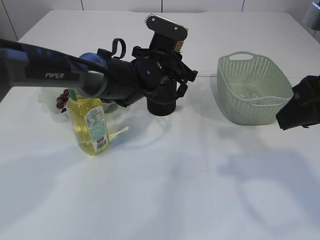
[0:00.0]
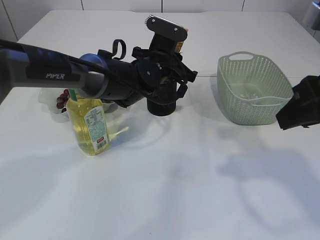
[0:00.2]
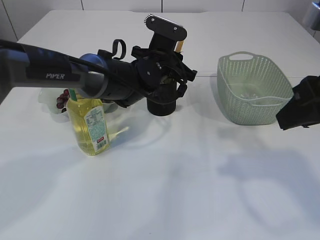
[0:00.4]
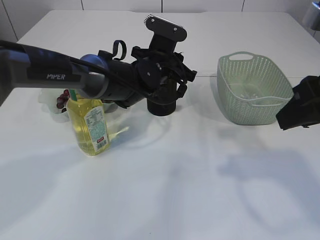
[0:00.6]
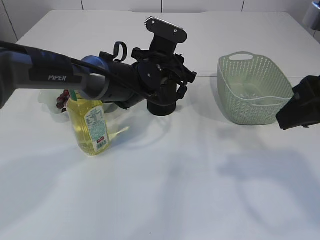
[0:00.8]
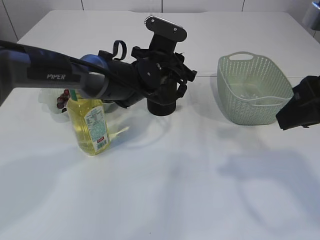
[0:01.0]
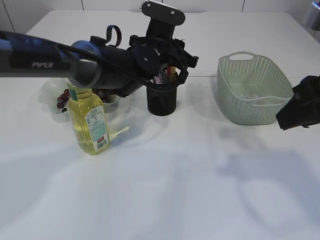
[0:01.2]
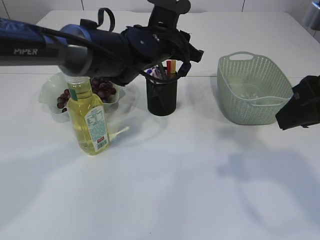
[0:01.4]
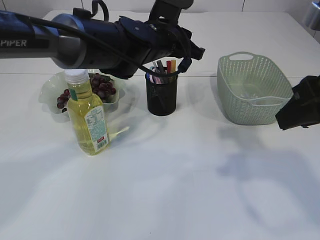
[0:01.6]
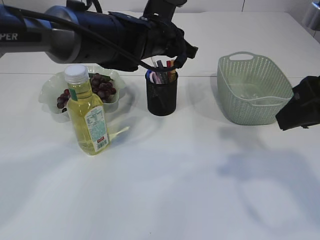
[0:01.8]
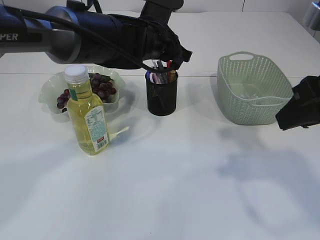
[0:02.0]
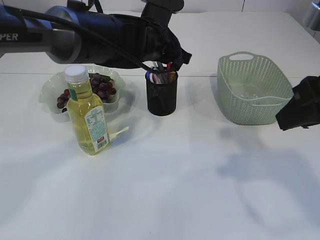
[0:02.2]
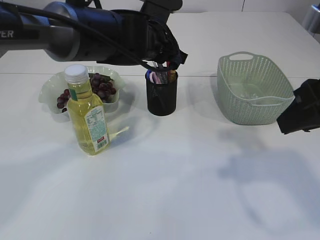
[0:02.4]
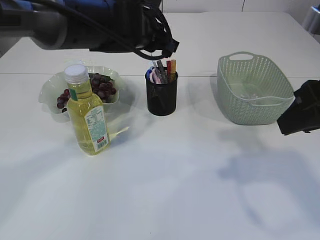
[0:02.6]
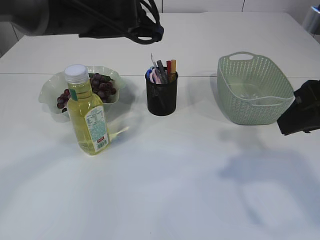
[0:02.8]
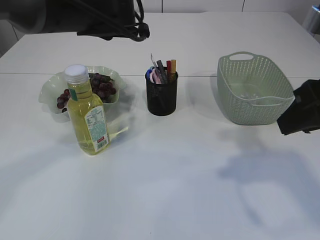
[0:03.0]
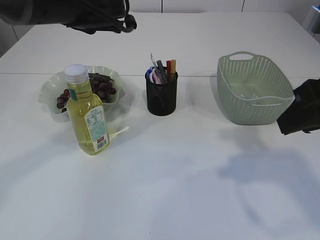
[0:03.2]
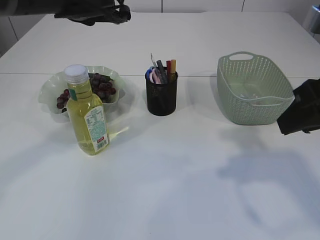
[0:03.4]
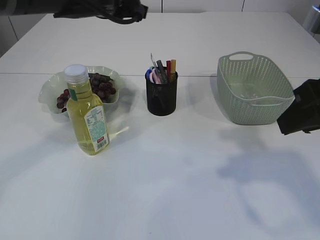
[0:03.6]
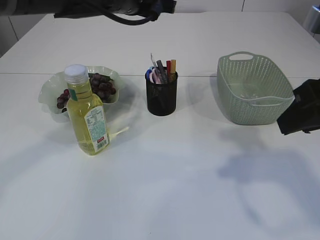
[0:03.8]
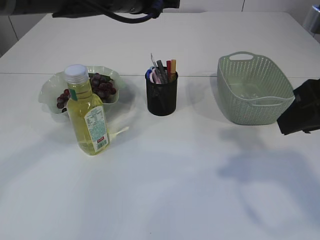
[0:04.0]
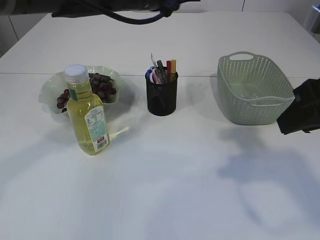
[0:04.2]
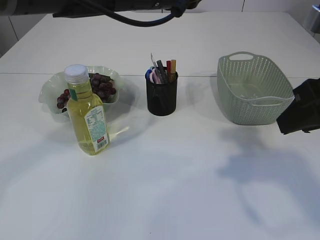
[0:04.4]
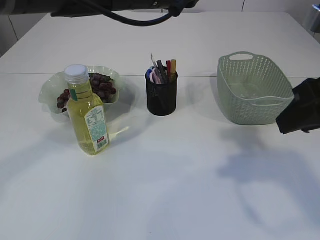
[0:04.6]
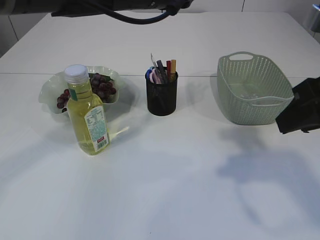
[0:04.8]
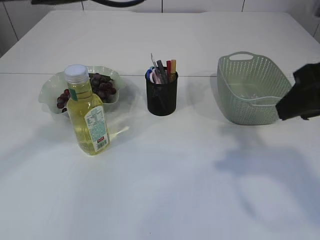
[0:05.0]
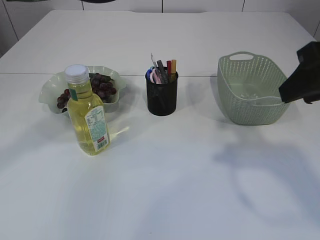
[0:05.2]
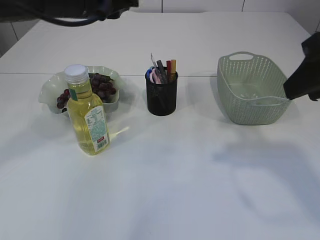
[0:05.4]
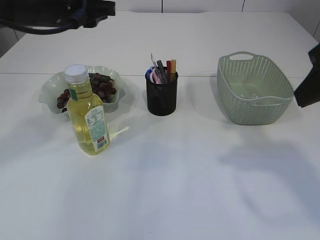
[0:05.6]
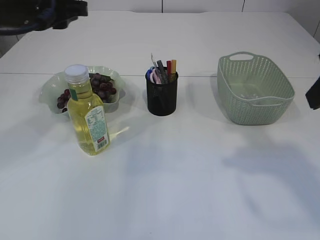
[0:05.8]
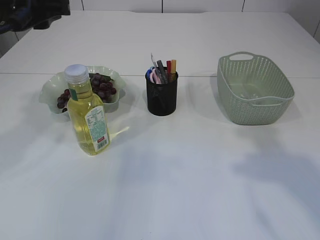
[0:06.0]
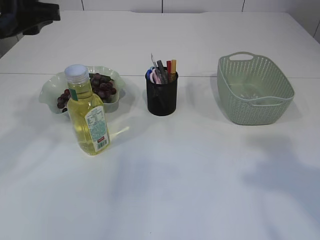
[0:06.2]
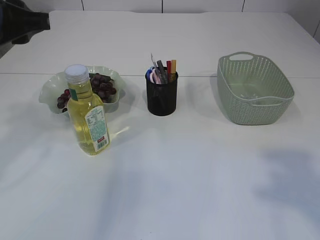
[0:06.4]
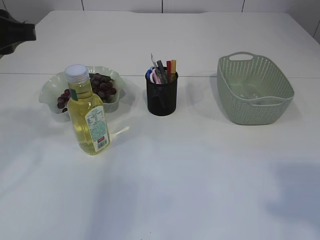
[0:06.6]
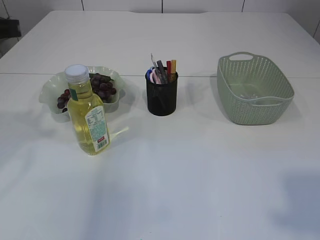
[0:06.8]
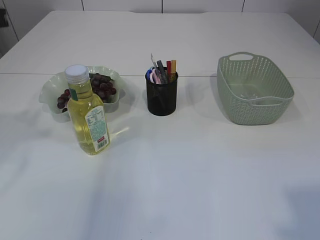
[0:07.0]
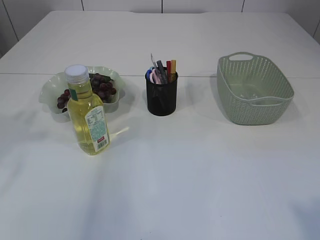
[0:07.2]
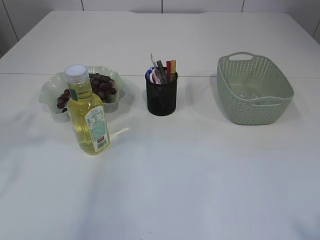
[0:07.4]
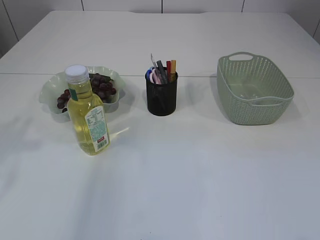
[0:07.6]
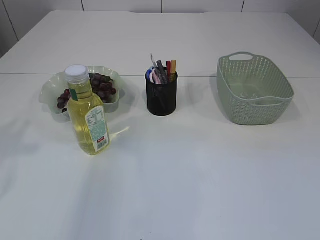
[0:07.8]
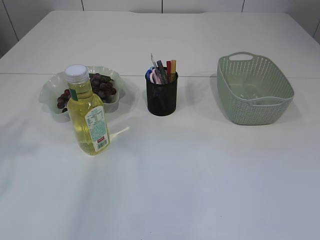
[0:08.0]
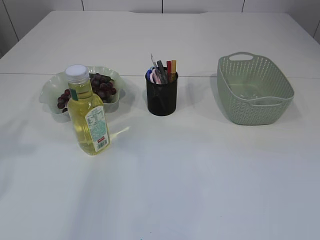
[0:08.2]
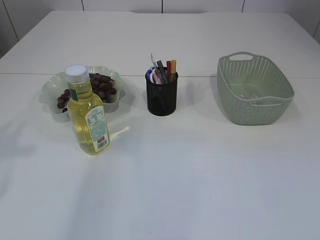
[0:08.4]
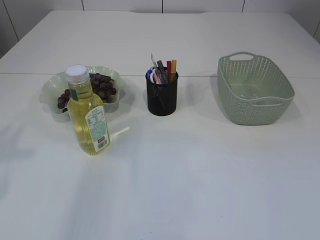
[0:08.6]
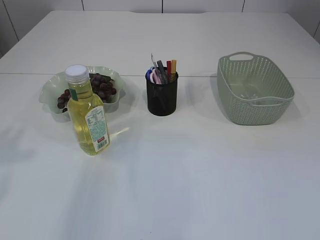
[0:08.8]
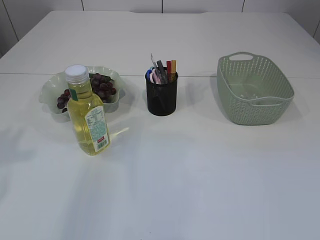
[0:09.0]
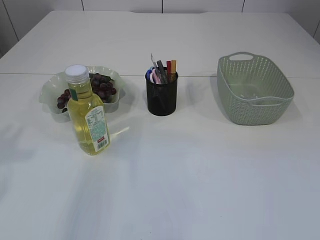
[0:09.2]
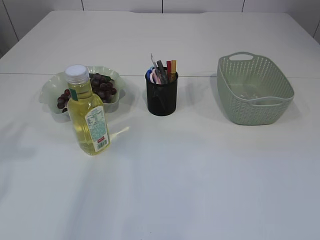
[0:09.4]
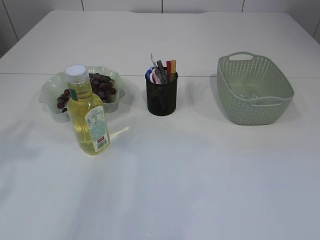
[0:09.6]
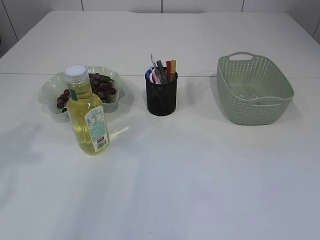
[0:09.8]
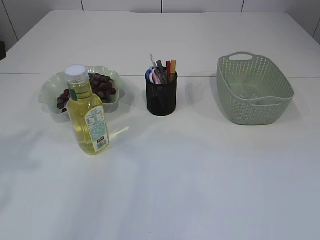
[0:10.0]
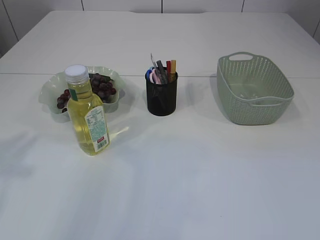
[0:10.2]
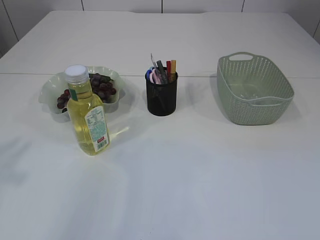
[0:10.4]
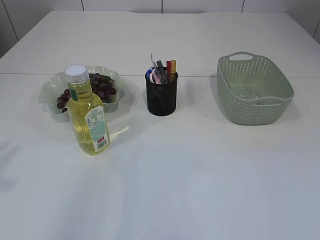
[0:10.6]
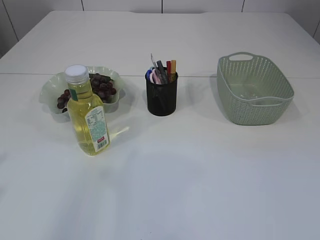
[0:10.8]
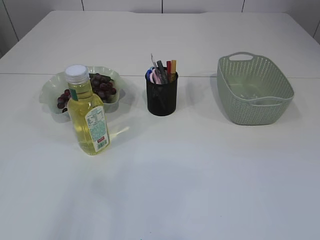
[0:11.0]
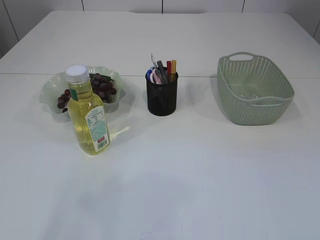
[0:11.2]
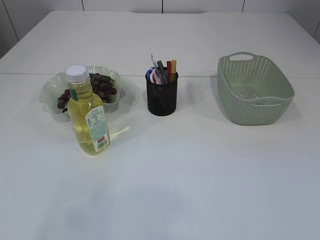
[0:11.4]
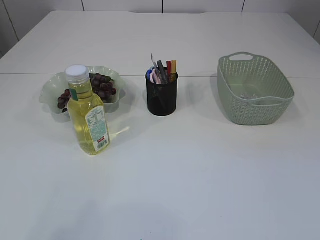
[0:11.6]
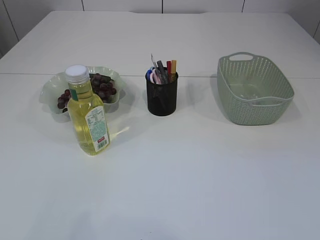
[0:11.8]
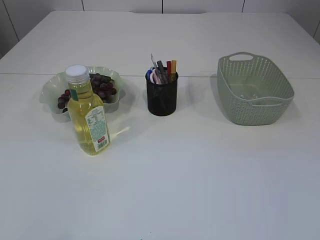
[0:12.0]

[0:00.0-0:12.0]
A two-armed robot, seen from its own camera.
Step, 0:00.0 to 0:02.8: place the yellow glue into the pen holder.
0:00.0 to 0:01.6: The left gripper travels upward by about 5 cm.
0:01.6 to 0:03.0: The left gripper heads to the left and upward, covering about 10 cm.
0:03.0 to 0:04.4: The left gripper goes about 5 cm to the right.
0:04.4 to 0:06.0: The right gripper is displaced upward by approximately 5 cm; the left gripper travels to the left by about 20 cm.
0:06.0 to 0:07.6: The left gripper goes some 10 cm backward and to the left.

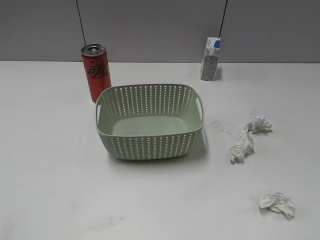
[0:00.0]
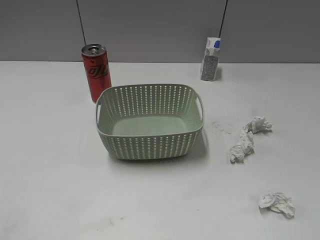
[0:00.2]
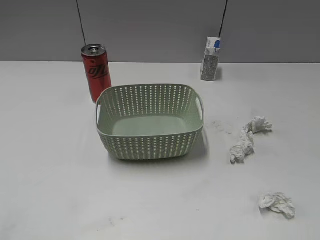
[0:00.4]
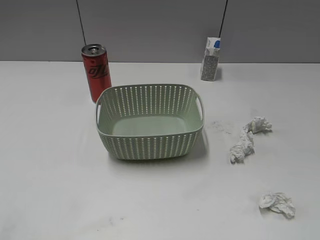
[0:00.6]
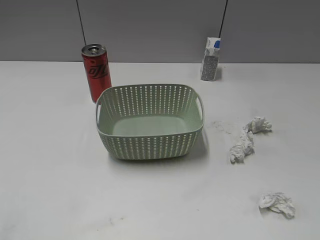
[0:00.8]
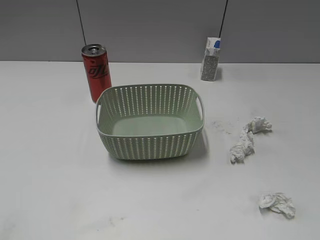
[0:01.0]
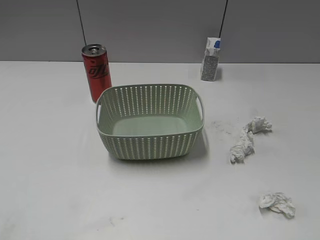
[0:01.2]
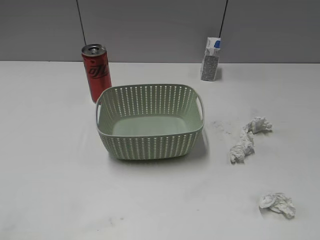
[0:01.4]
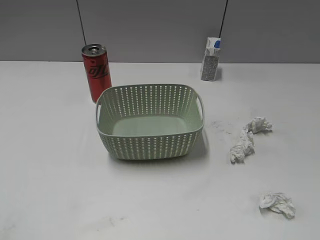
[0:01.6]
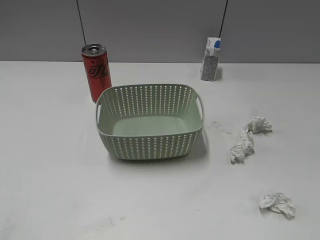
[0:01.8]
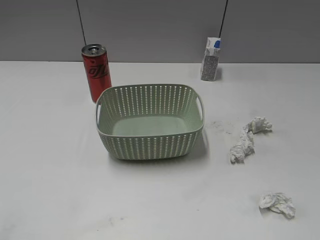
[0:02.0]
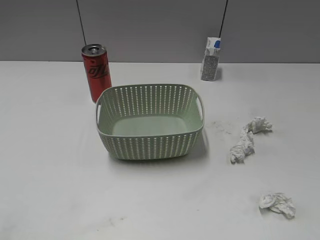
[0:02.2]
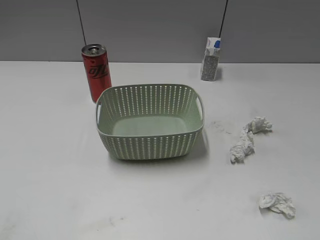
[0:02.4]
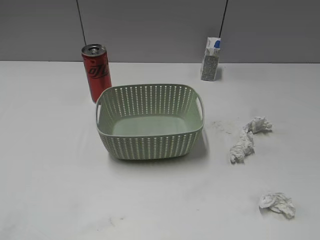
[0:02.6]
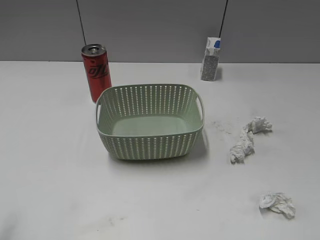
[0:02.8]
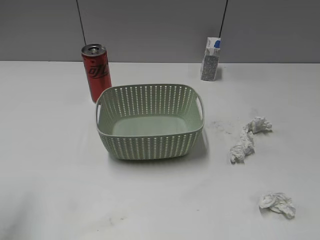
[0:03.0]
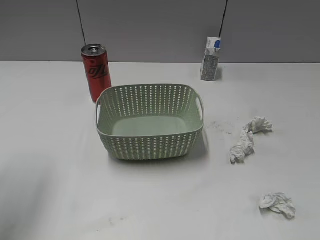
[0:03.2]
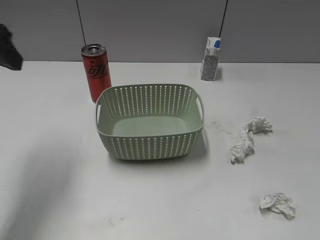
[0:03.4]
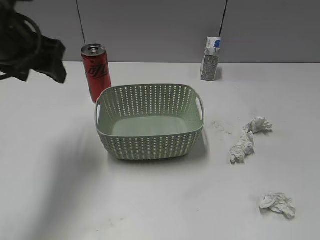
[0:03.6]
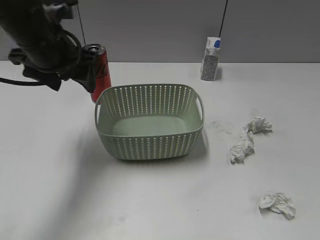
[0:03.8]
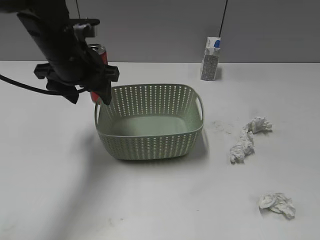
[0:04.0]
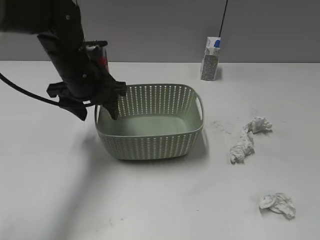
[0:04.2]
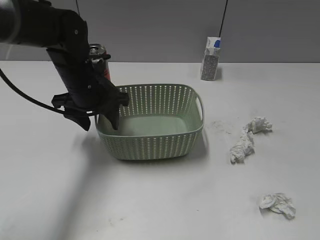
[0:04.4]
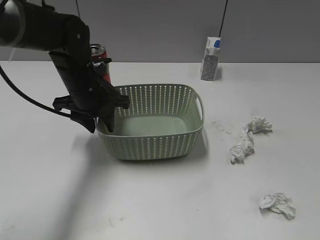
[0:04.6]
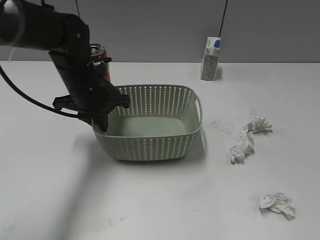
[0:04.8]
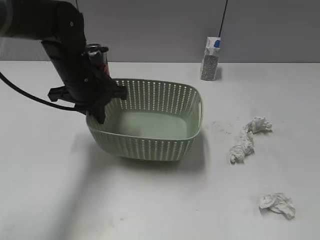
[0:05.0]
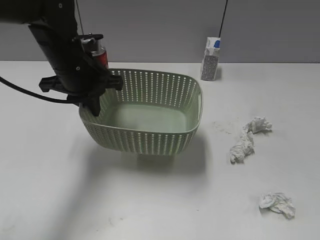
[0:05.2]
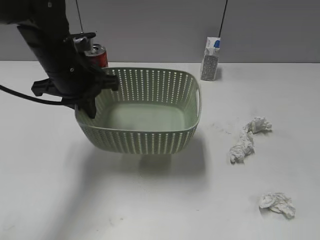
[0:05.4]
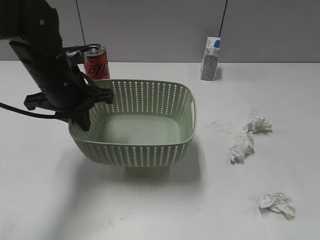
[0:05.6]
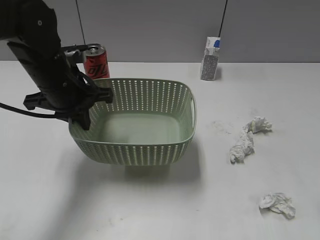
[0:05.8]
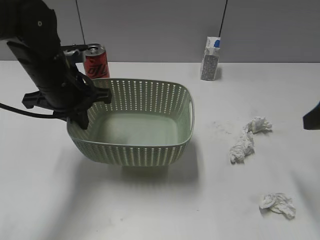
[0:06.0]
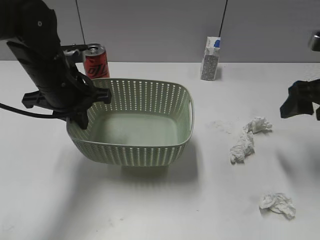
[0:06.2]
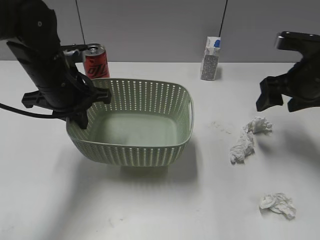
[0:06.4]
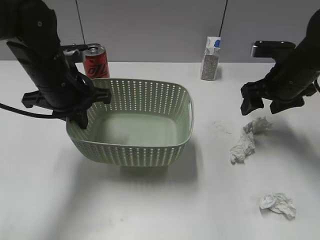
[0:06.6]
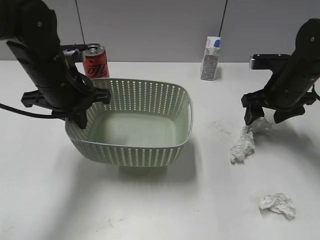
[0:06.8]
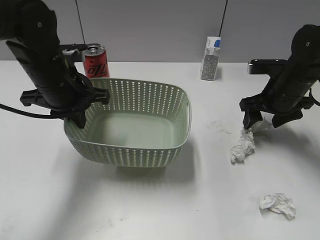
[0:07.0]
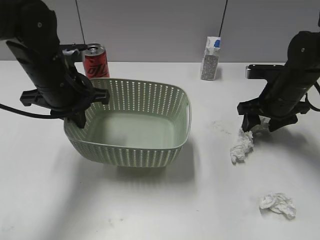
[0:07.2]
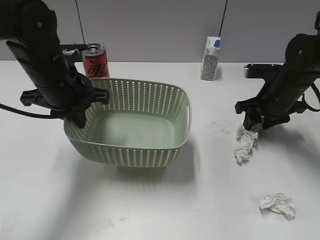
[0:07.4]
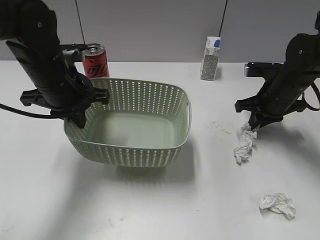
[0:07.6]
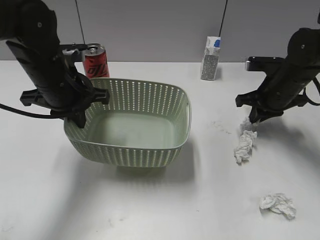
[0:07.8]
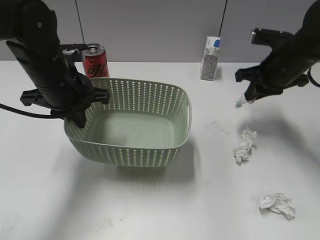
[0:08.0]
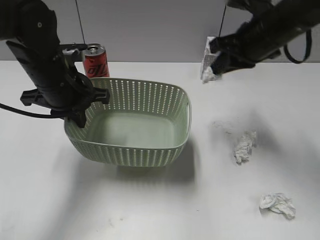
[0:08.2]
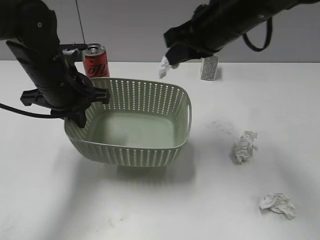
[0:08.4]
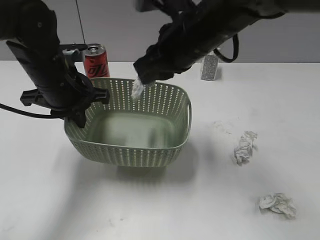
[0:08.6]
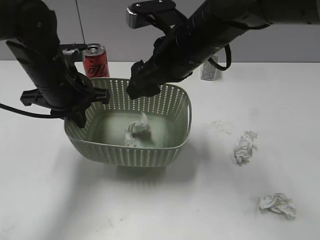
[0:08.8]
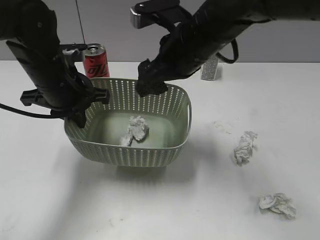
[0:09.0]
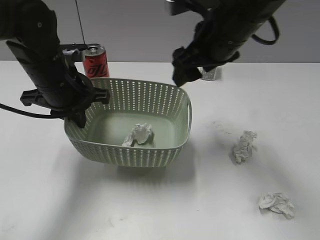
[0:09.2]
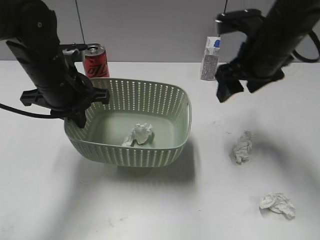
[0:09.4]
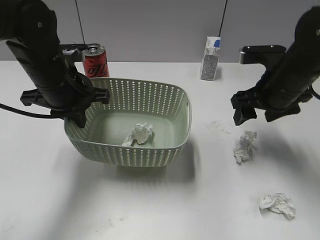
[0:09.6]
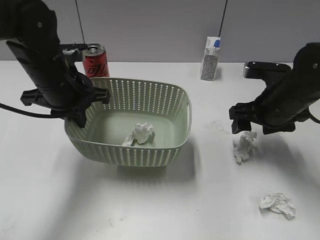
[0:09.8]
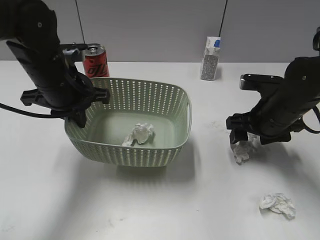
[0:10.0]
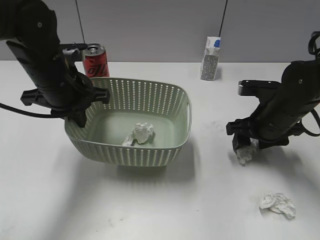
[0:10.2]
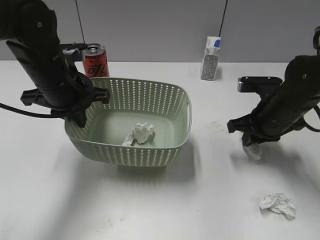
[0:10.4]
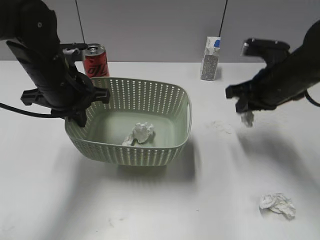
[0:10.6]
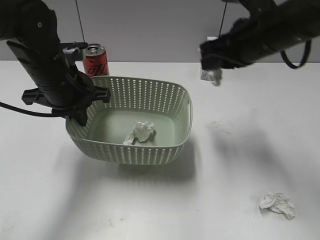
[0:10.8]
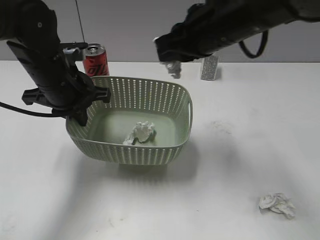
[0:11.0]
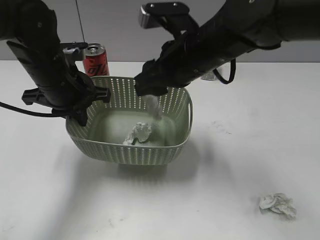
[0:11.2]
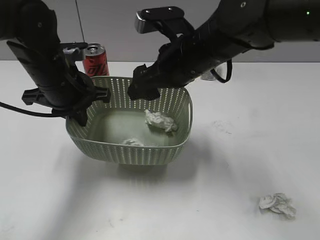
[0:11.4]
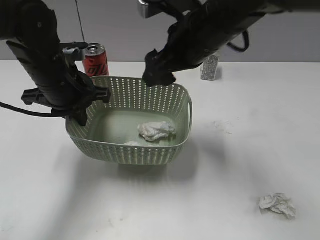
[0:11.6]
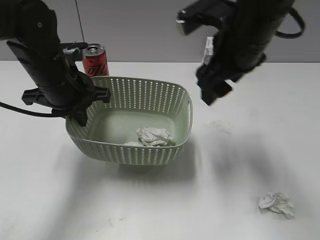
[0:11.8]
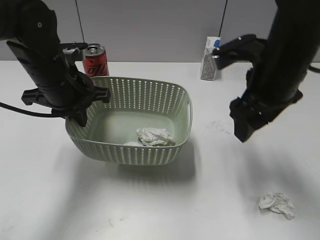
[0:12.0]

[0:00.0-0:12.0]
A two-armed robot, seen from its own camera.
Step, 0:02.0 to 0:04.8: Grasp the eraser with left gripper.
Step, 0:05.0 to 0:05.6: Lift the basket with left gripper.
Step, 0:05.8 to 0:07.6: Grasp the waste paper with right gripper.
Step, 0:07.8 to 0:09.0: Place the waste paper in the basket with right gripper.
Step, 0:09.2 to 0:10.4: Grasp the waste paper with right gripper.
Step, 0:10.6 to 0:11.6: Place the waste paper in the basket with right gripper.
0:01.6 to 0:03.0: The left gripper heads forward, covering roughly 15 cm, and opens its fingers.
0:03.0 to 0:04.4: The left gripper travels forward, to the right and downward by some 35 cm.
0:04.4 to 0:06.0: The left gripper shifts by roughly 5 cm, and closes up, while the right gripper goes some 20 cm forward.
0:06.0 to 0:07.6: The right gripper goes some 20 cm forward and downward, and closes.
0:07.6 to 0:09.0: The right gripper moves to the left and upward, some 25 cm, and opens up.
0:09.0 to 0:10.4: The right gripper shifts approximately 20 cm to the right and downward, and closes.
0:10.4 to 0:12.0: The right gripper shifts about 15 cm upward and to the left, and opens its fingers.
